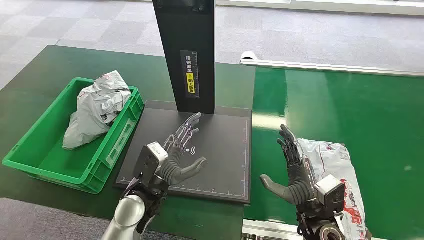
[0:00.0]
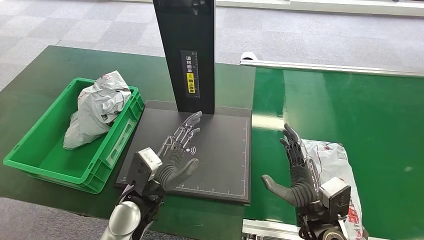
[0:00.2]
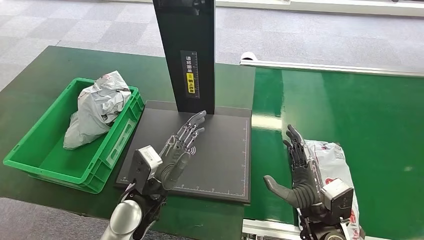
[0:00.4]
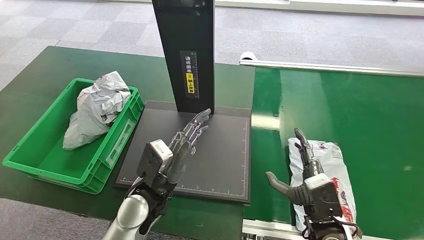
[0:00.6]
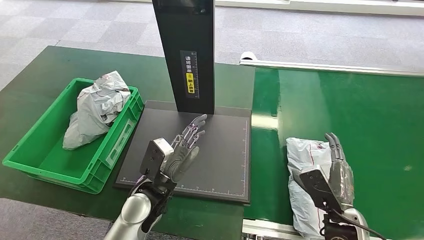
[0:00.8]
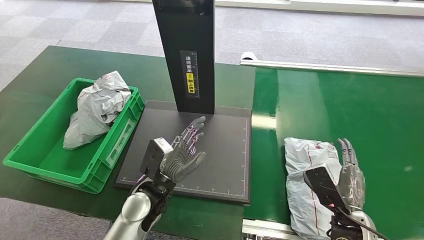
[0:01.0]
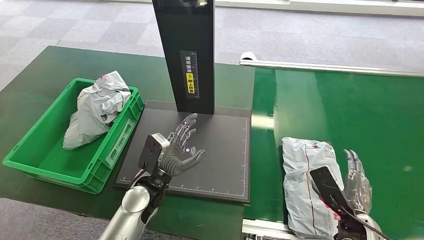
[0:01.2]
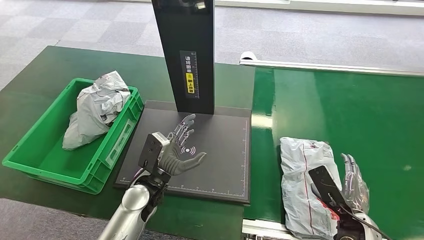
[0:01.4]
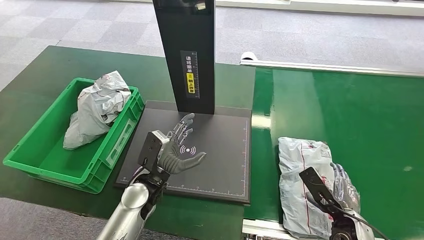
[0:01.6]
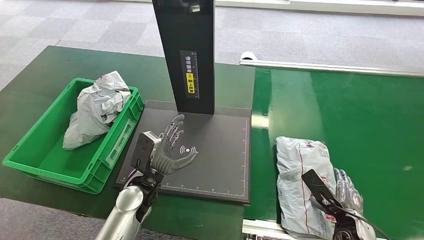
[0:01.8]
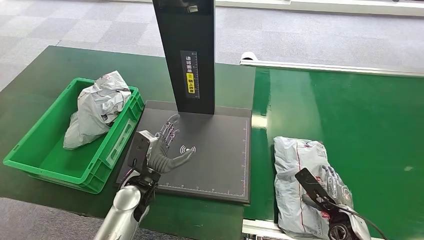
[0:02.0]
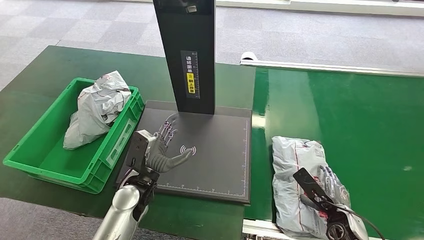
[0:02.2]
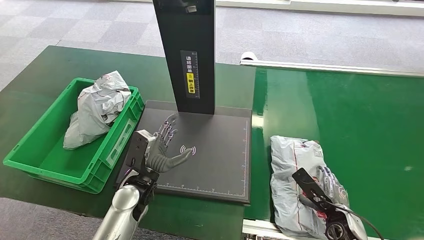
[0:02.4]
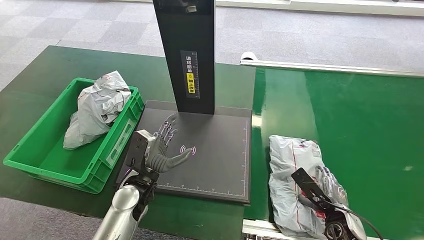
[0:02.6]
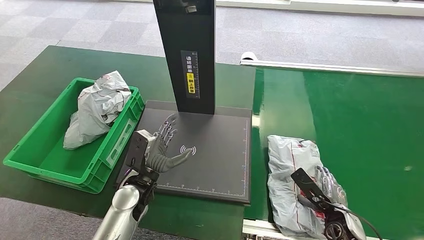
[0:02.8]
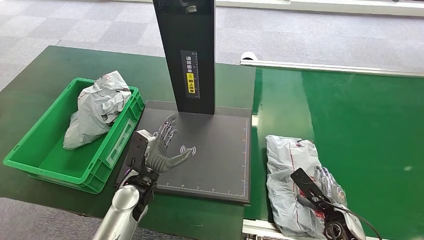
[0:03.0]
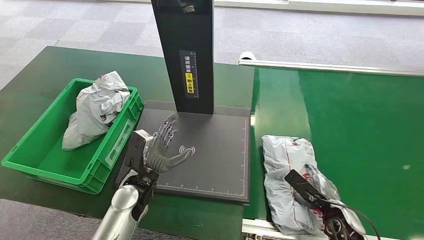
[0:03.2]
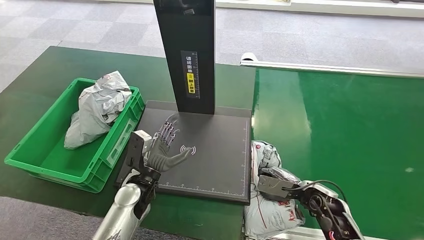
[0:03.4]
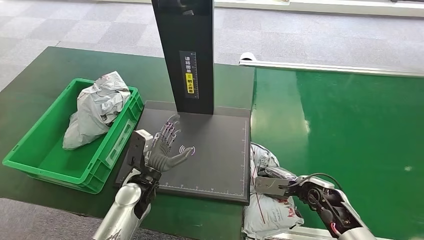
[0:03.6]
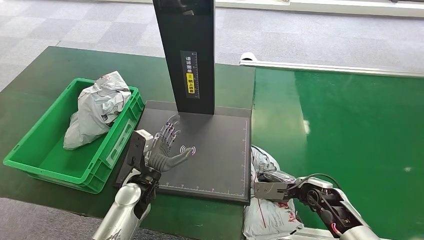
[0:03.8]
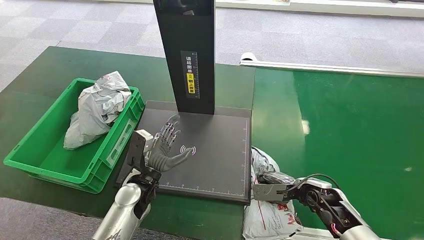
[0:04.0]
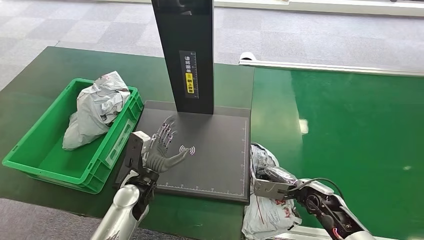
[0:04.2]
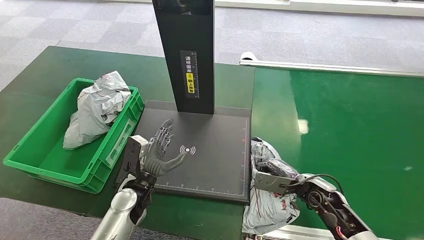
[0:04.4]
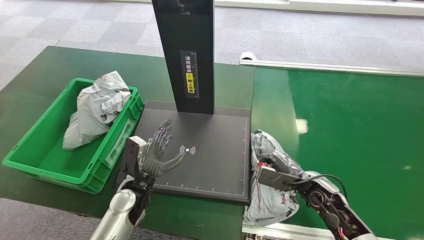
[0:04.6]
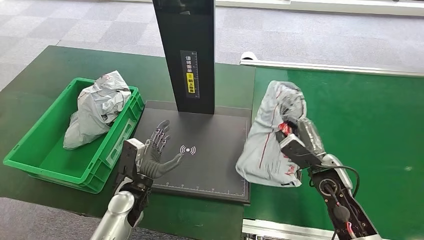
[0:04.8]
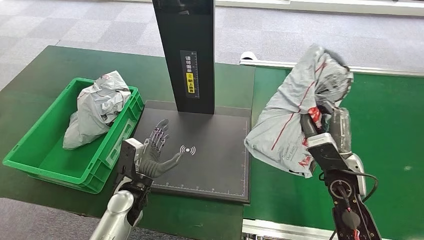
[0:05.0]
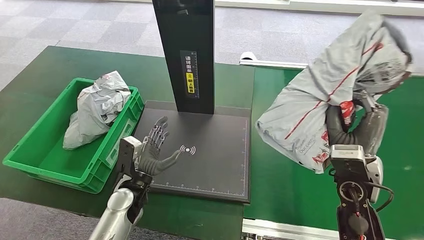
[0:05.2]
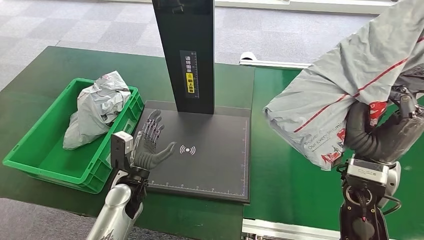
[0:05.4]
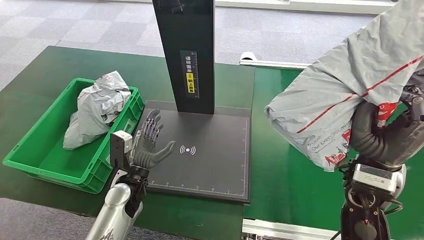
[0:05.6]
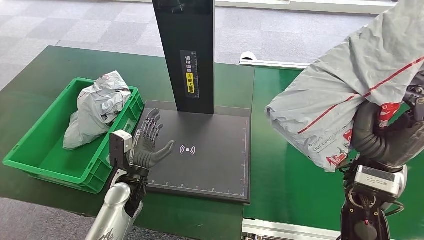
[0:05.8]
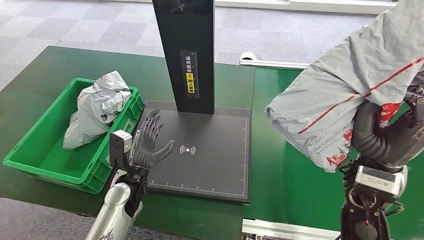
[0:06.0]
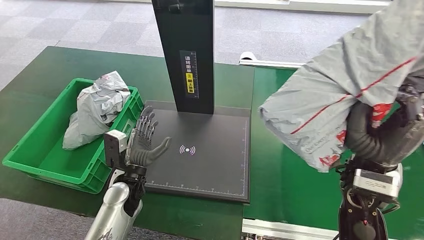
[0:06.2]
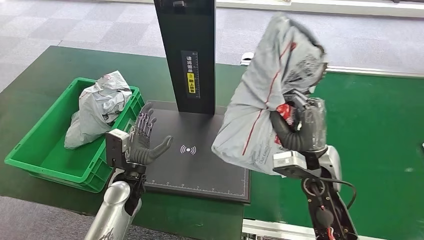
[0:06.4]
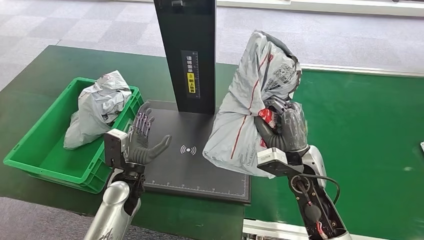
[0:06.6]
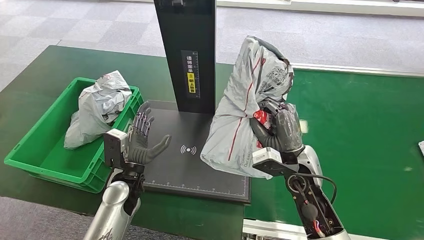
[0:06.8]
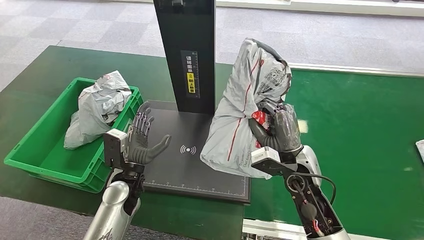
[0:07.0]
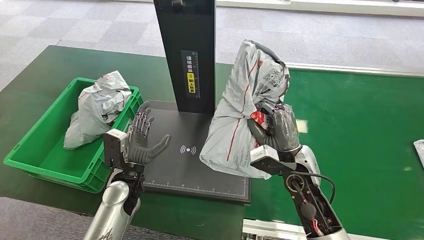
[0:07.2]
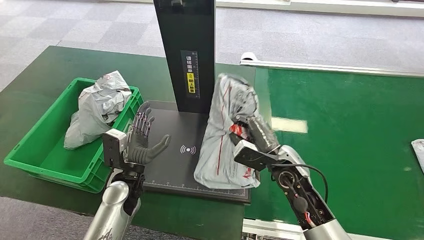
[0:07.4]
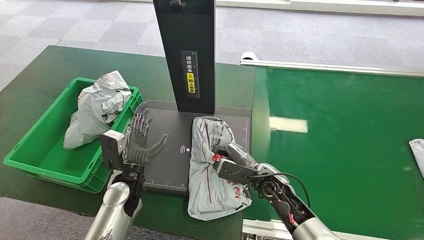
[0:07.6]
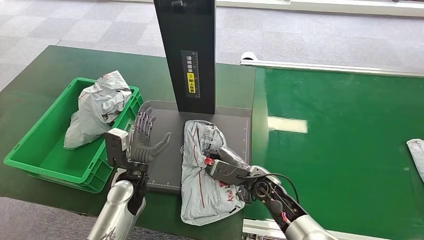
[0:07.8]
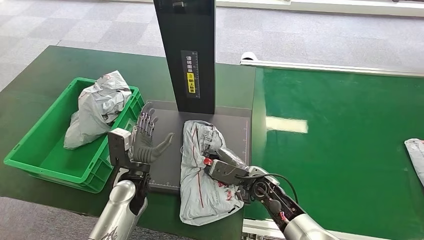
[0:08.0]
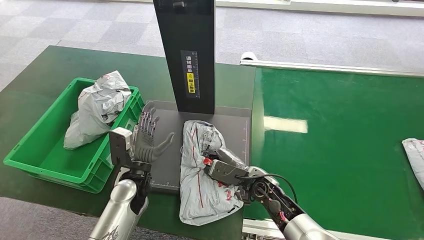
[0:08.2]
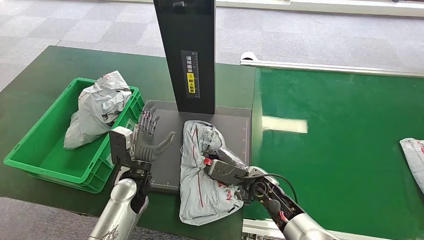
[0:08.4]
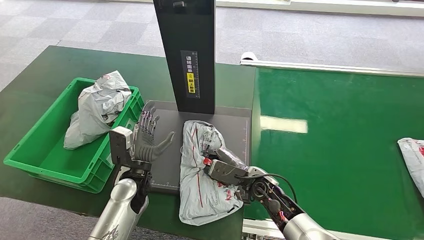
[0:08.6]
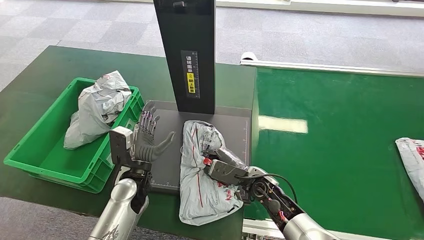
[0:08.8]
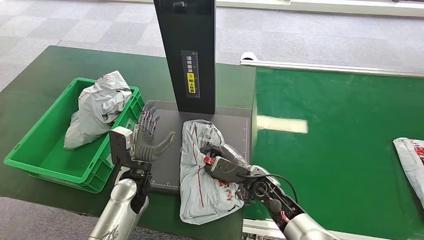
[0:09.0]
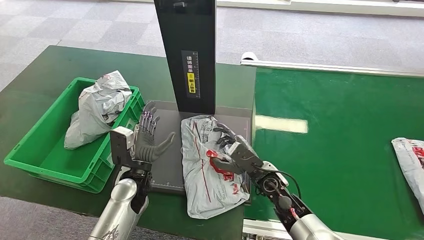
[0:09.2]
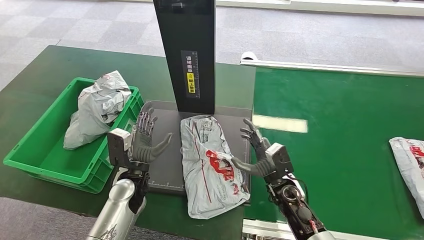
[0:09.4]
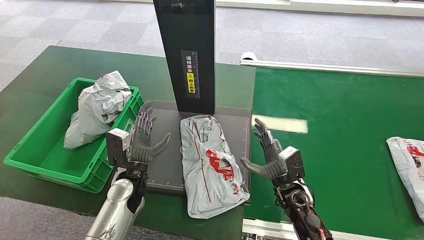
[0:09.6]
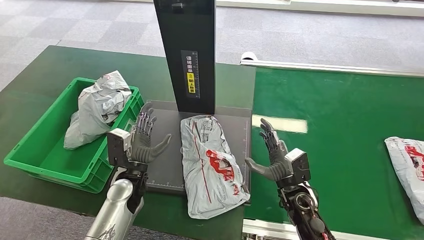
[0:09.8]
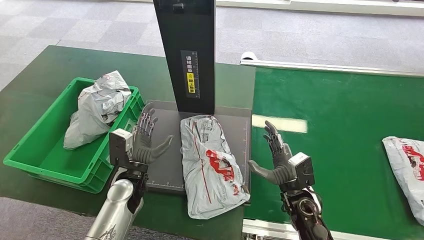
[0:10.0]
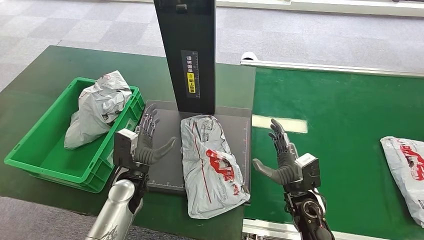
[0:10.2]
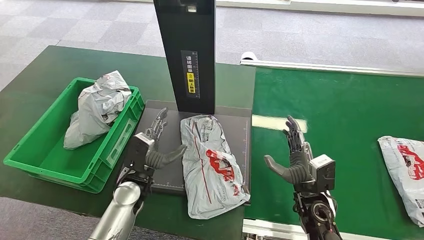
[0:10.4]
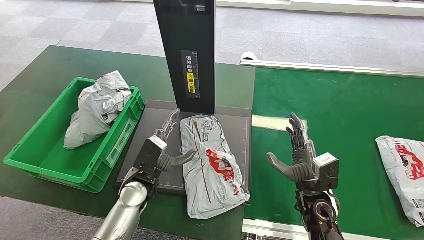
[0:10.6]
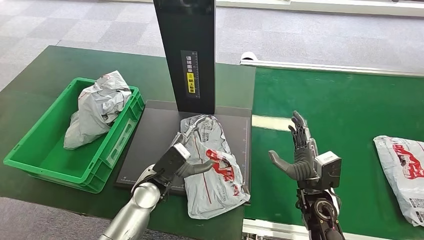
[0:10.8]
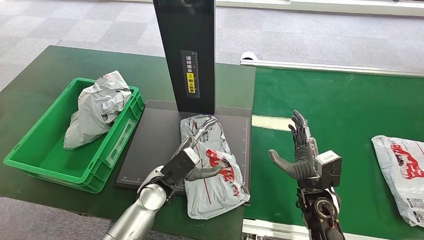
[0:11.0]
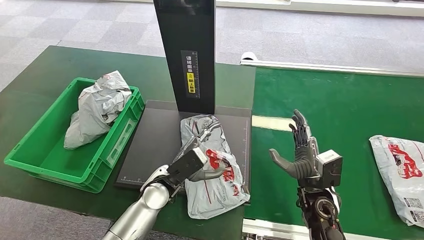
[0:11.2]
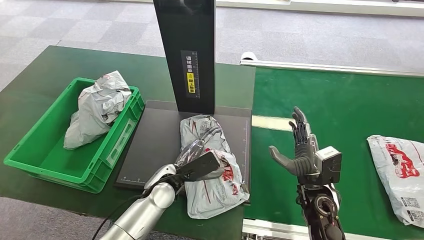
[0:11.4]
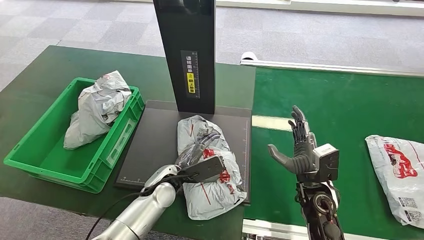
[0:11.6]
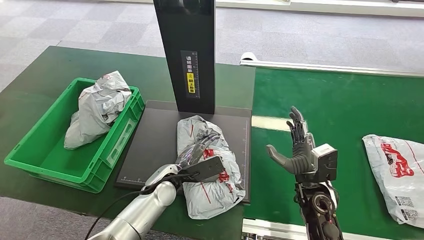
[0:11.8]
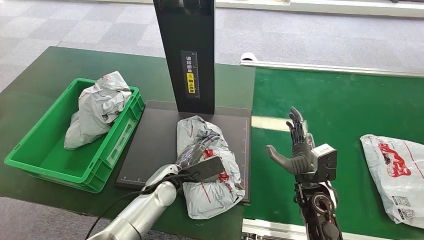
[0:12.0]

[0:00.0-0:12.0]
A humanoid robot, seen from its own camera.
Task of the whole recording: Weigh the package on the weighing device and place it in the left basket.
Step, 0:00.0 to 0:05.4: Pick up the package from the conveyor belt.
Step, 0:05.6 to 0:09.8: Place the package onto the inbound machine.
0:01.6 to 0:03.0: The hands make only small movements.
0:03.0 to 0:04.4: The right hand goes about 10 cm forward.
0:07.6 to 0:09.0: The hands make only small movements.
0:09.0 to 0:10.4: The right hand heads to the right and backward, covering about 10 cm.
0:10.4 to 0:12.0: The left hand moves to the right, roughly 5 cm.

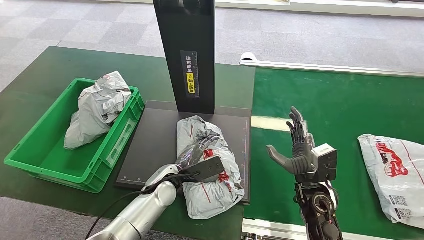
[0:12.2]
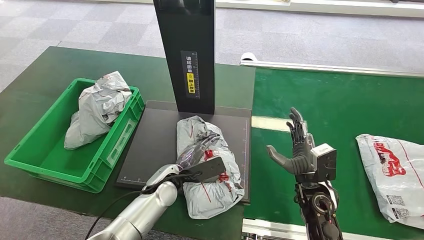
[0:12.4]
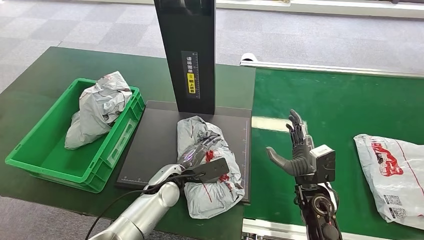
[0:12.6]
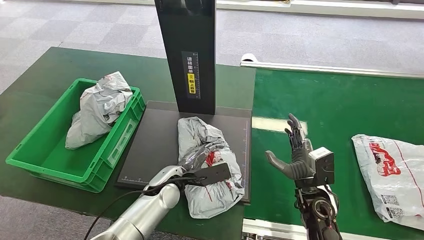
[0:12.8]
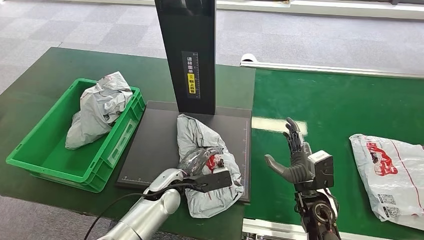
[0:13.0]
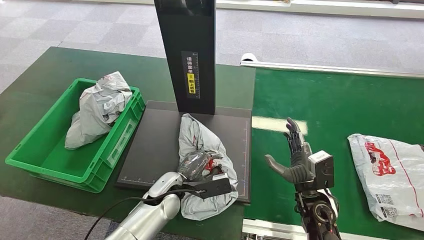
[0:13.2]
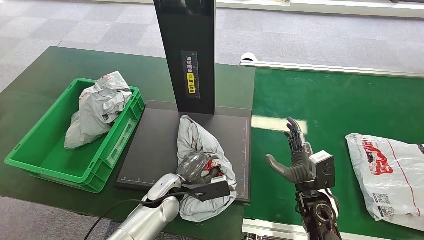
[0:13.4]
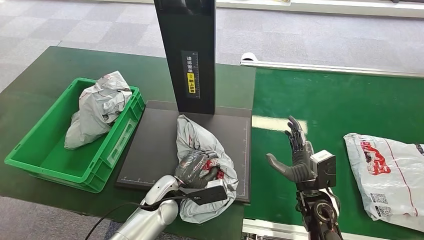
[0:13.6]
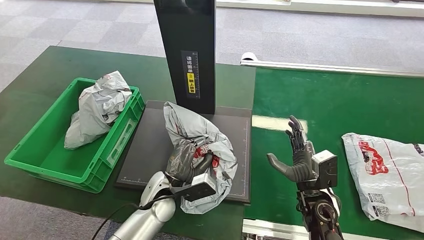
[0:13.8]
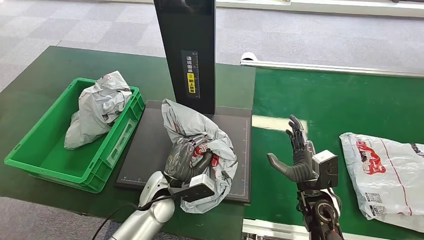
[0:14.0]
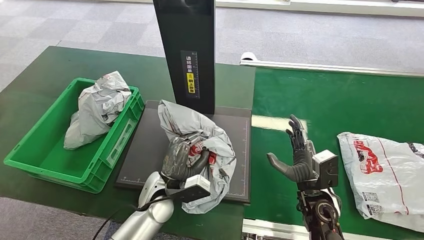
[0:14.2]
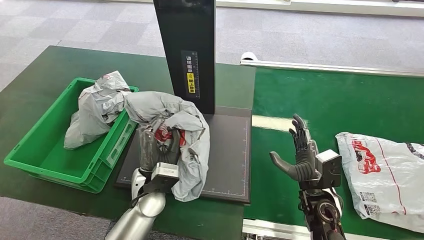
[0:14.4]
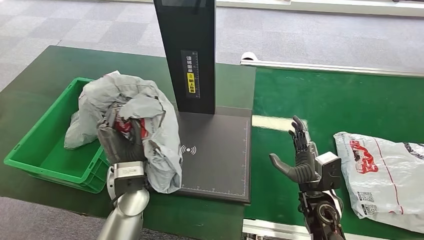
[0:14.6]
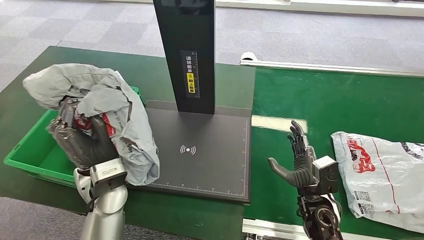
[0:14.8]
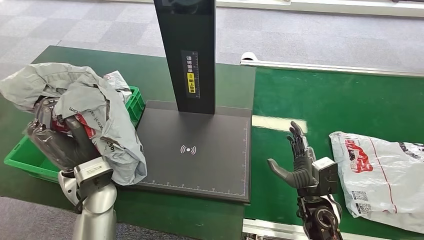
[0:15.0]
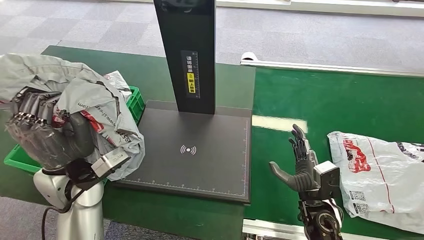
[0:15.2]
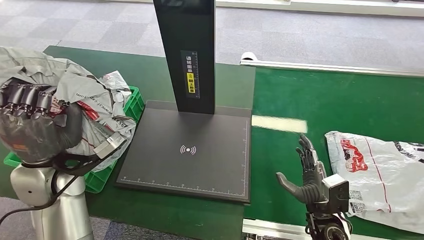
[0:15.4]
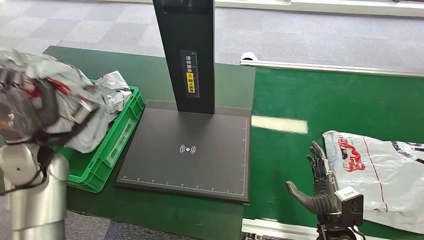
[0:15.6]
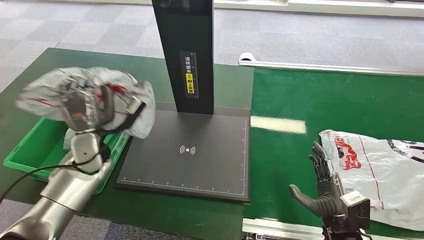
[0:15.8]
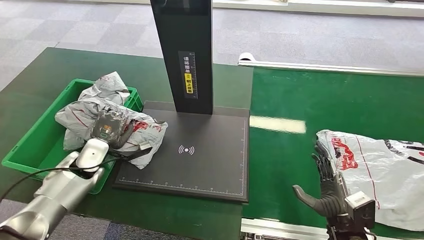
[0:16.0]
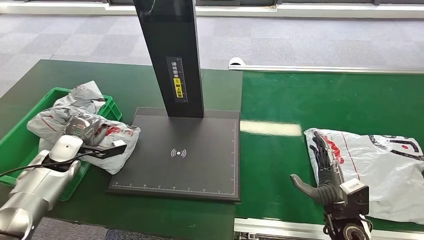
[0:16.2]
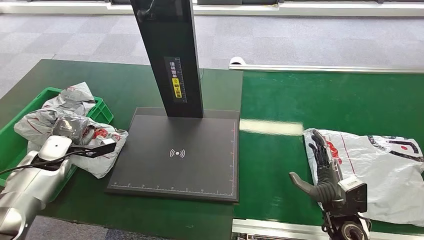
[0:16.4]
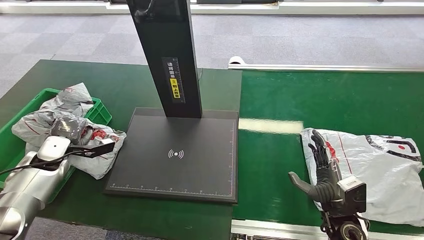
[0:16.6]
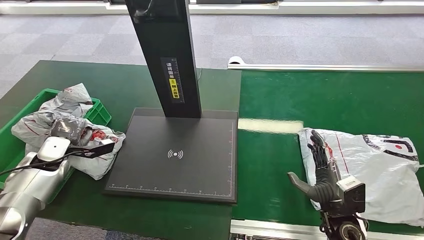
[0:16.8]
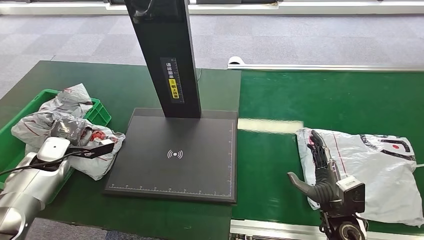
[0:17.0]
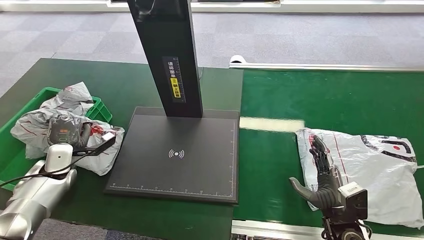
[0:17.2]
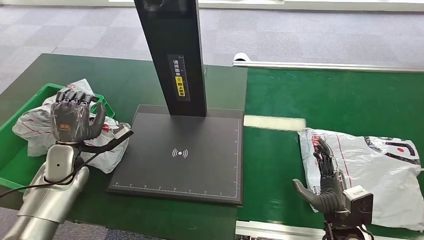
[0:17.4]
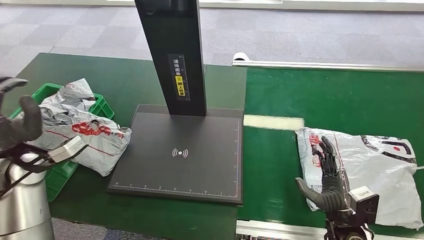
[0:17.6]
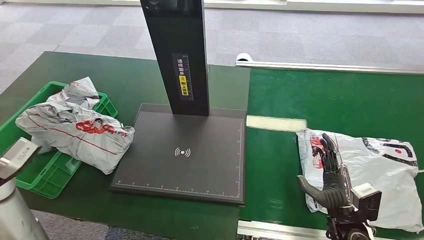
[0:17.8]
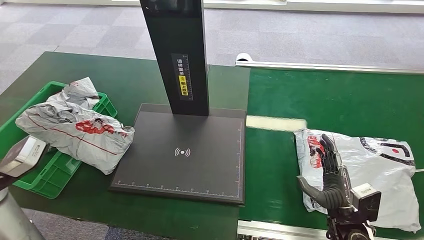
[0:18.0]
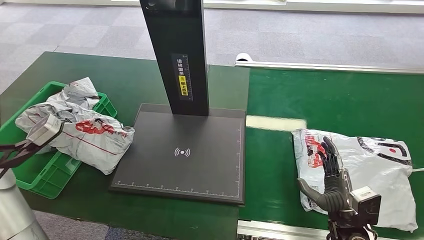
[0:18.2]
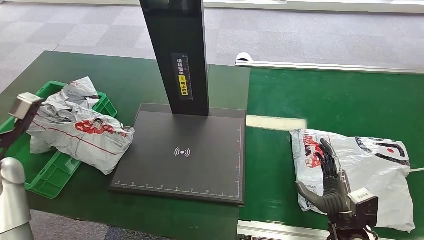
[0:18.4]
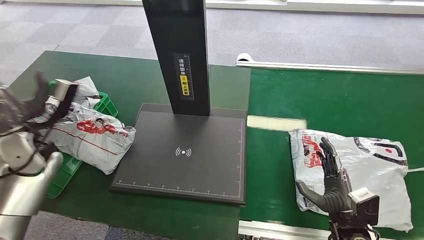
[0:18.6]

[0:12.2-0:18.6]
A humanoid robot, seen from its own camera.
Task of the whole recording: Weigh the package on the weighing device and place it in the left basket.
Step, 0:12.2 to 0:15.0: Pick up the package from the inbound machine.
Step, 0:15.2 to 0:18.6: Place the package into the parcel locker.
